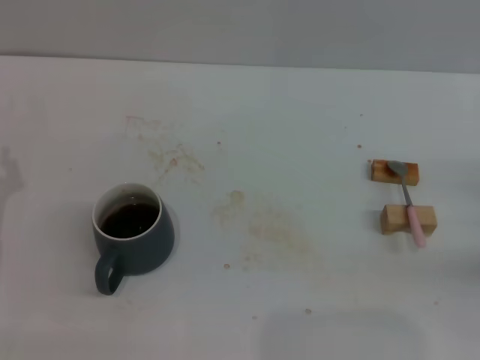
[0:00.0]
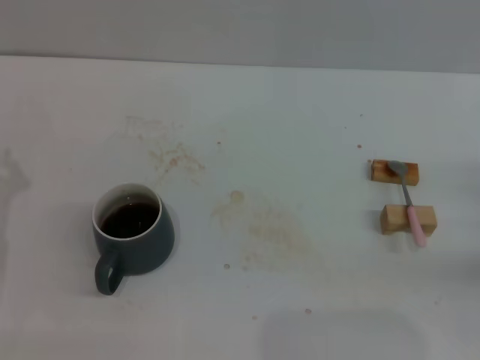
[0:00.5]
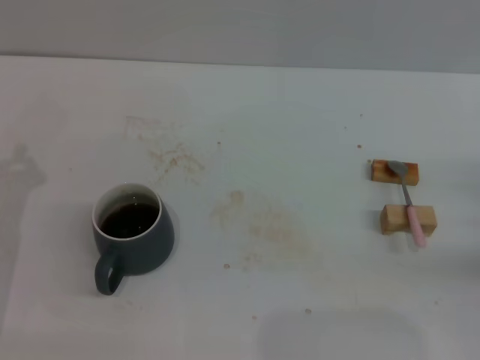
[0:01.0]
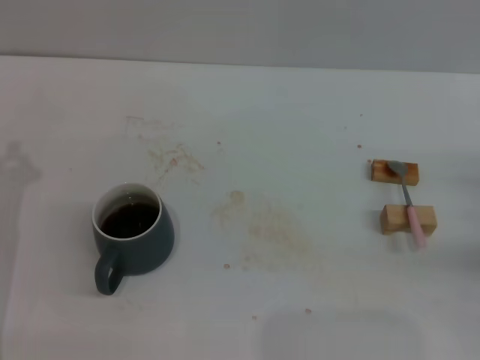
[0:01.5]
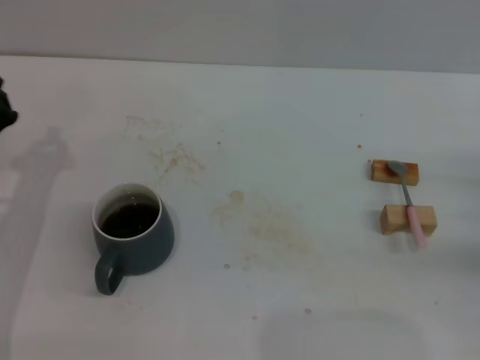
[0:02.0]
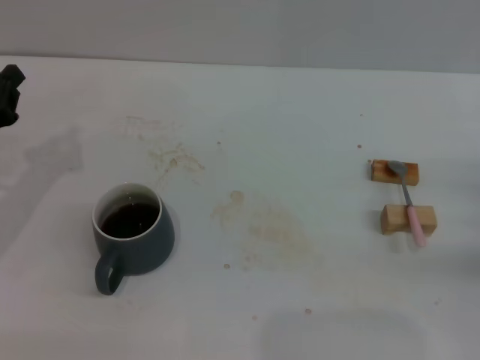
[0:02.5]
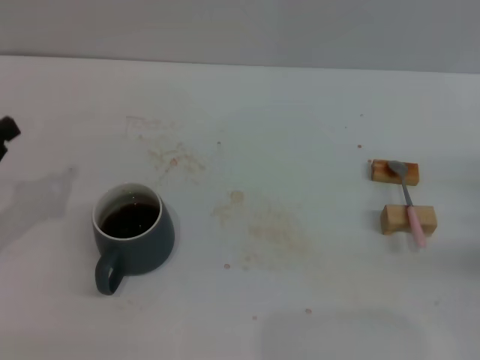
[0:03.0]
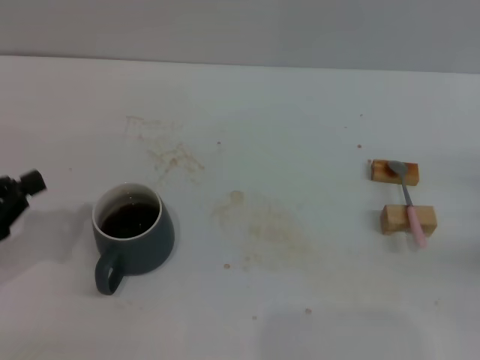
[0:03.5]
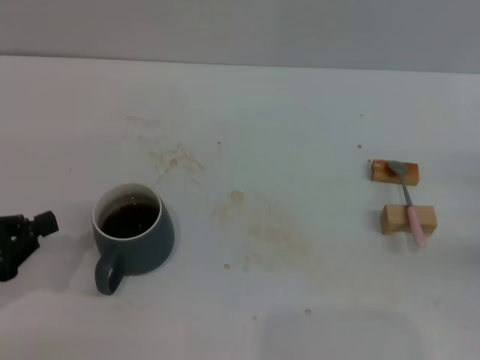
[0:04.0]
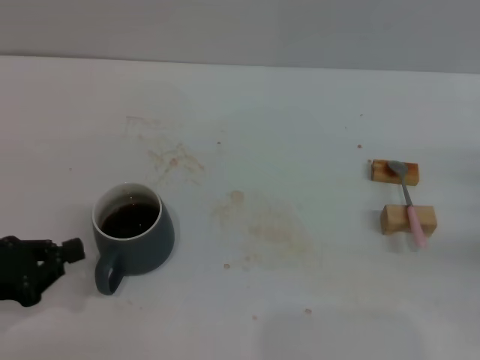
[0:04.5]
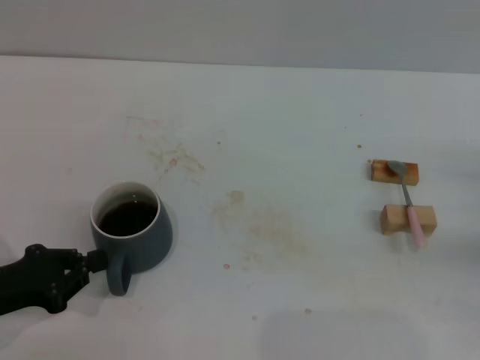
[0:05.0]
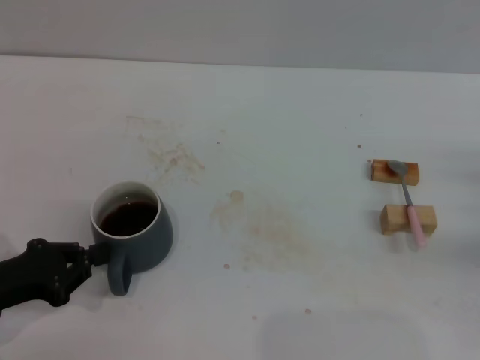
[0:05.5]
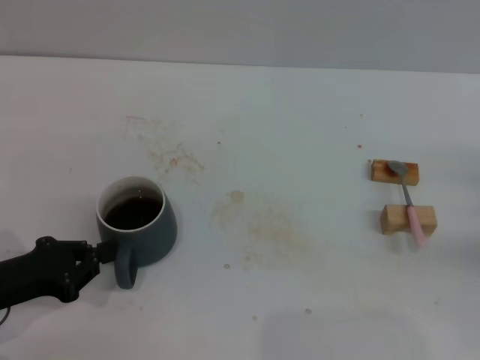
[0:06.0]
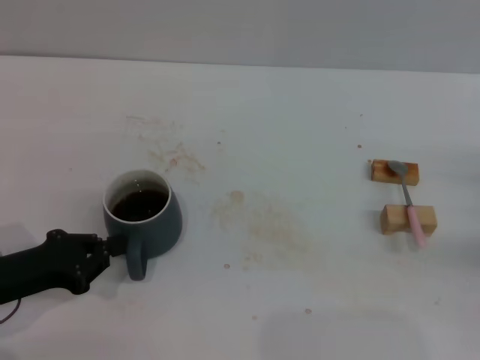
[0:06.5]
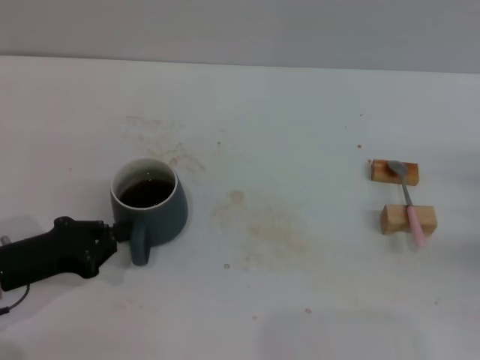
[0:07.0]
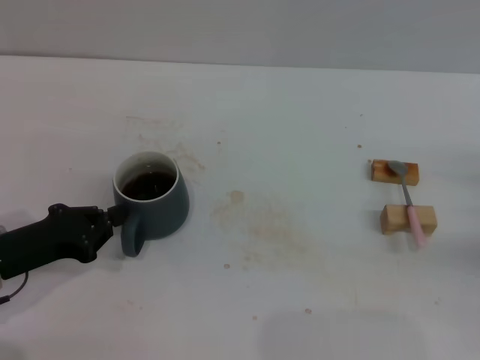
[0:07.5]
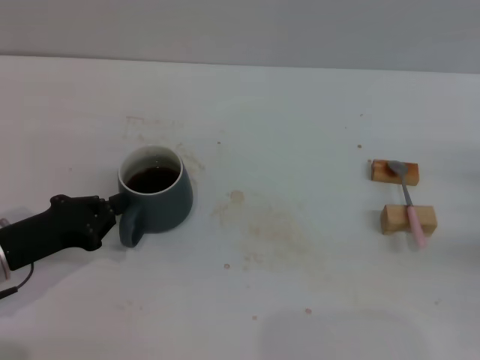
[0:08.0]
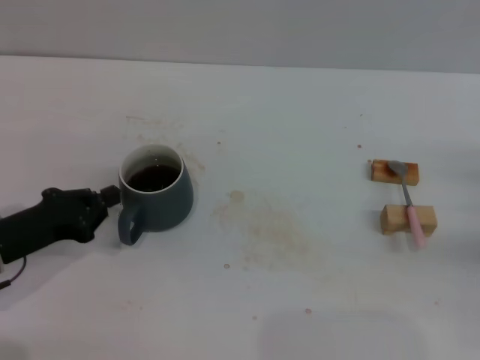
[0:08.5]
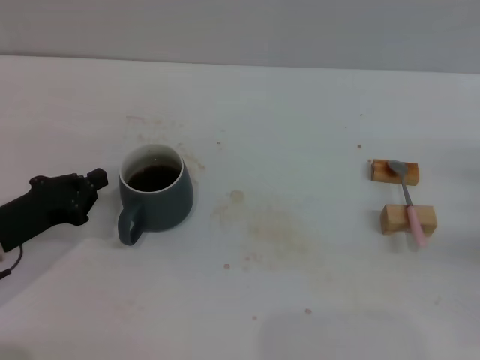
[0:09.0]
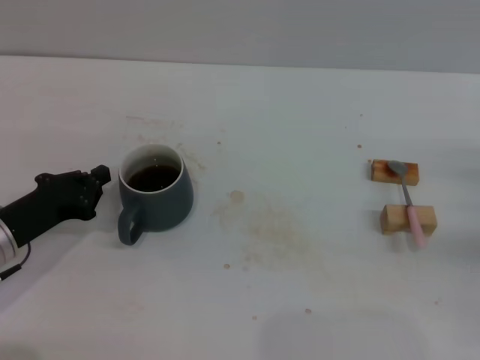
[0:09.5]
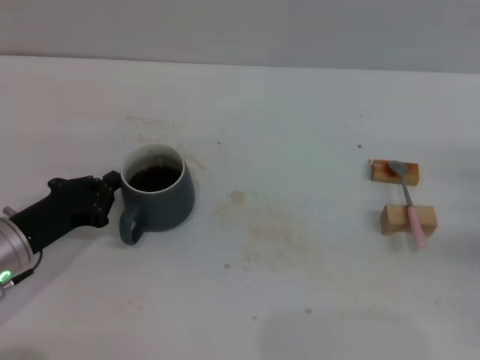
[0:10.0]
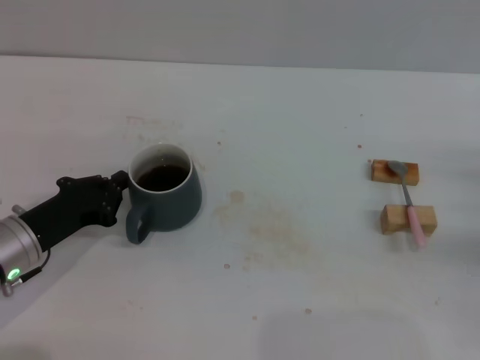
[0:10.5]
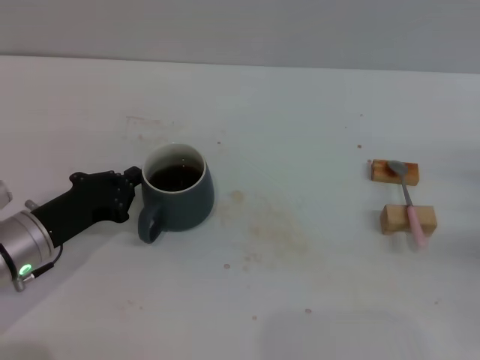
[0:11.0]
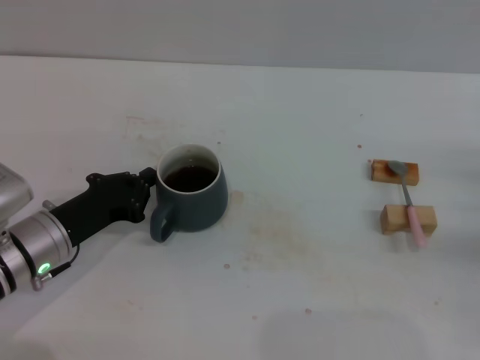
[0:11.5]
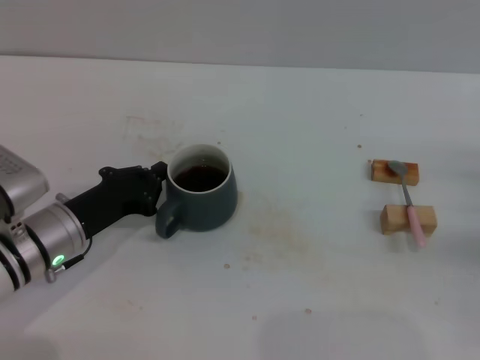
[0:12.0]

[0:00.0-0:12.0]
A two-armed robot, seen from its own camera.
Task of the whole recording: Move the grey cup to the center, lift the pink spoon, stir it three times in the cup, and put the spoon into the cup.
2.0 to 4.0 s: The left gripper heads backward and to the left, covering some 10 cm.
4.0 to 6.0 s: The grippers move only a little.
6.0 to 8.0 s: The grippers make only small movements.
8.0 to 10.0 s: The grippers make only small movements.
10.0 to 12.0 s: The left gripper moves approximately 5 cm.

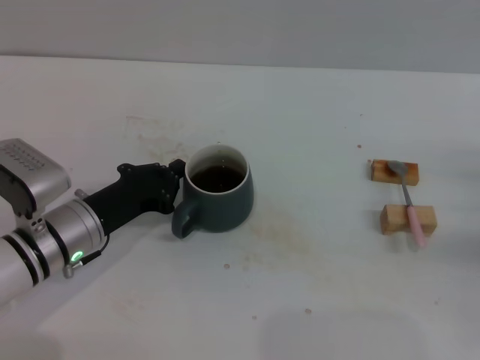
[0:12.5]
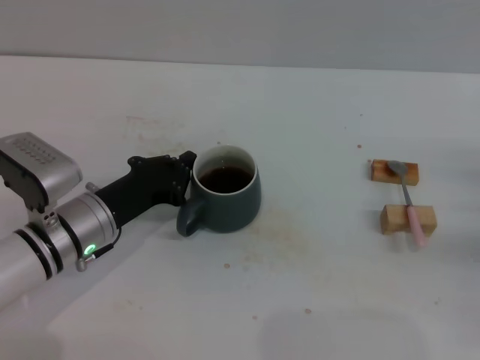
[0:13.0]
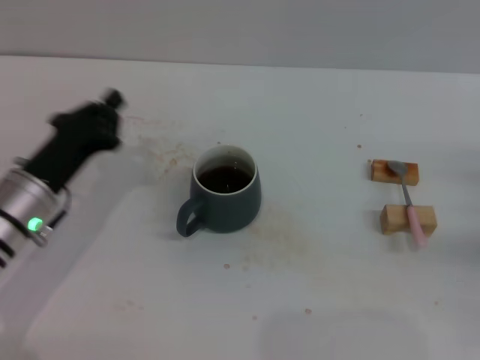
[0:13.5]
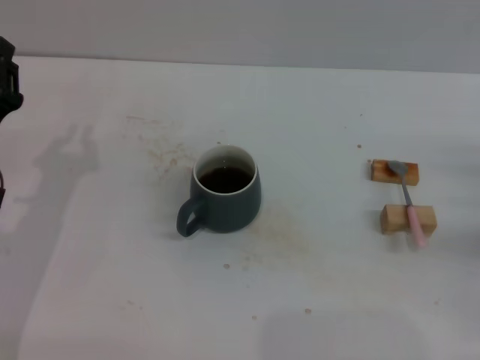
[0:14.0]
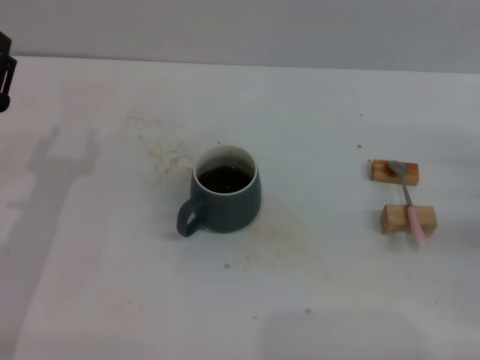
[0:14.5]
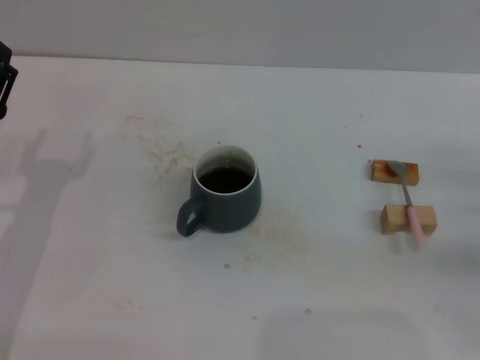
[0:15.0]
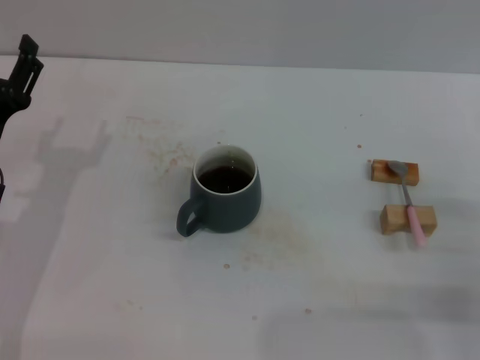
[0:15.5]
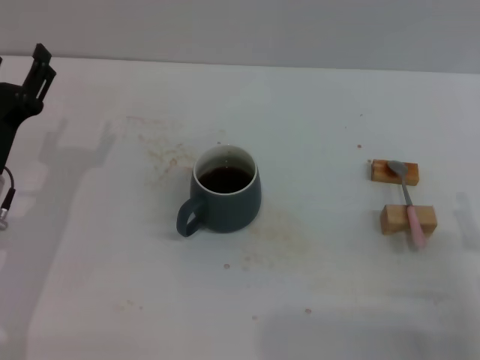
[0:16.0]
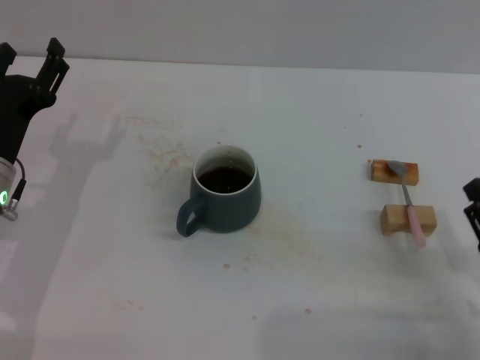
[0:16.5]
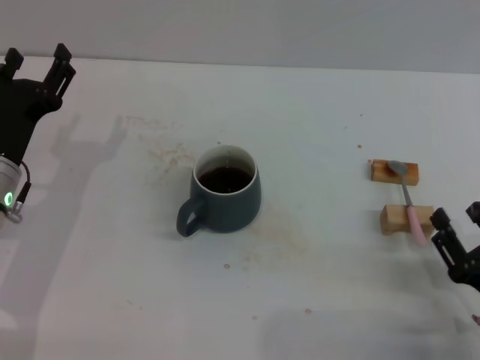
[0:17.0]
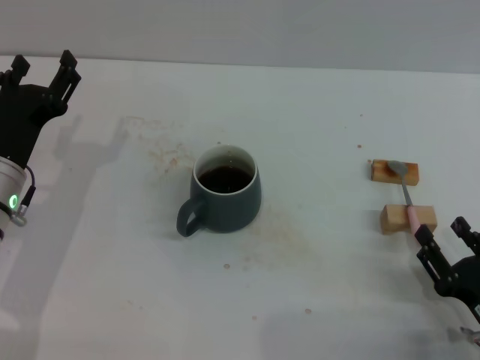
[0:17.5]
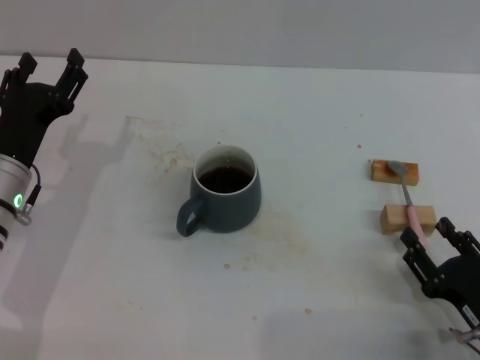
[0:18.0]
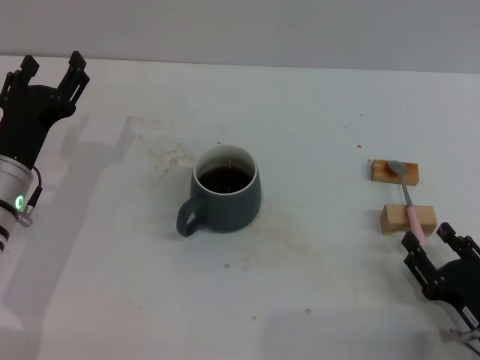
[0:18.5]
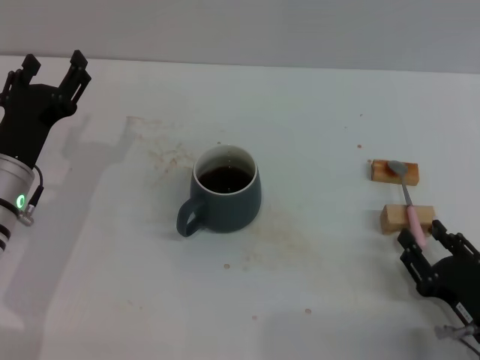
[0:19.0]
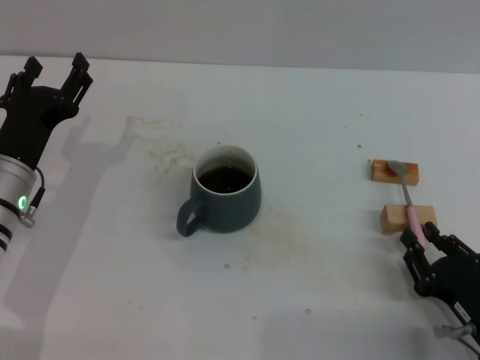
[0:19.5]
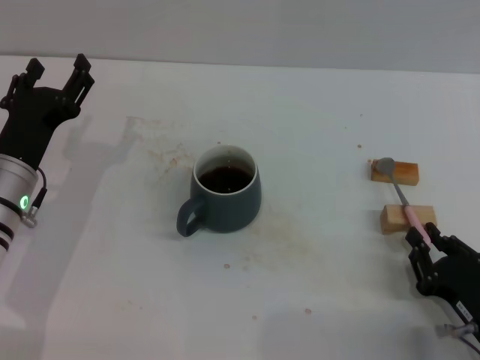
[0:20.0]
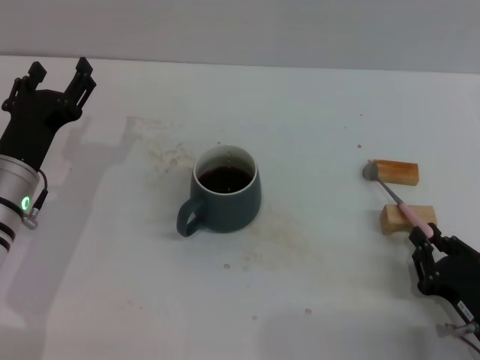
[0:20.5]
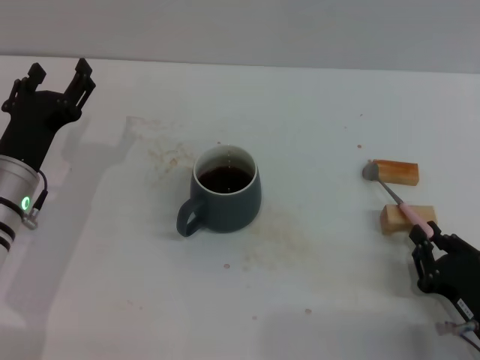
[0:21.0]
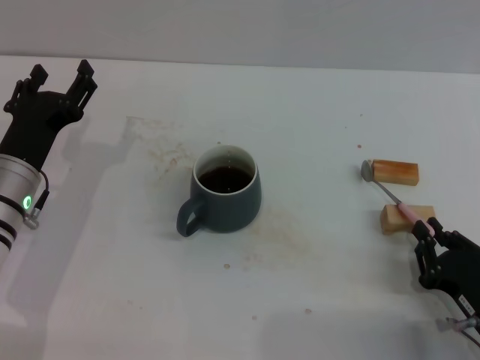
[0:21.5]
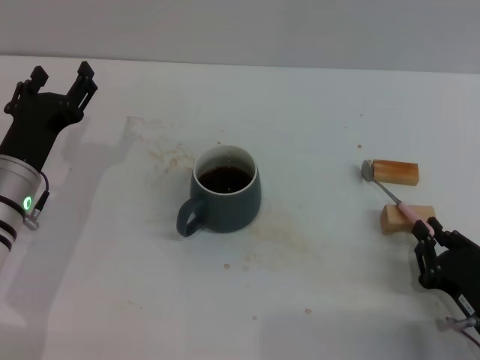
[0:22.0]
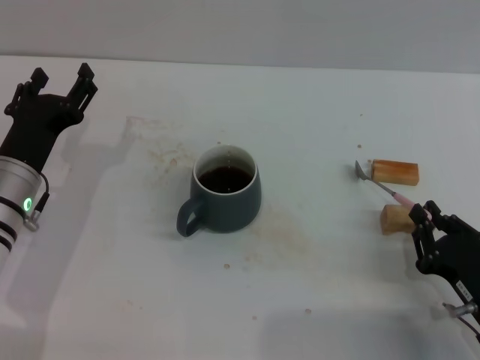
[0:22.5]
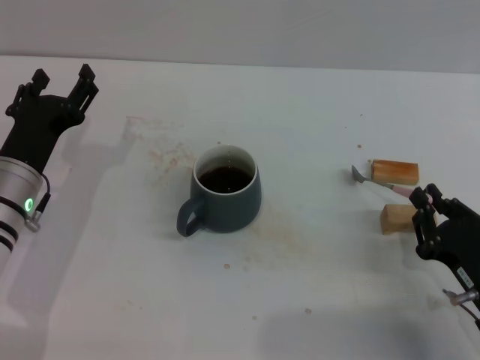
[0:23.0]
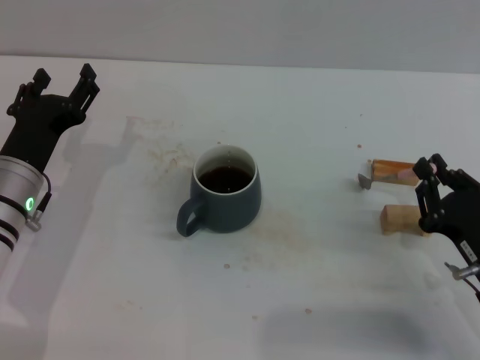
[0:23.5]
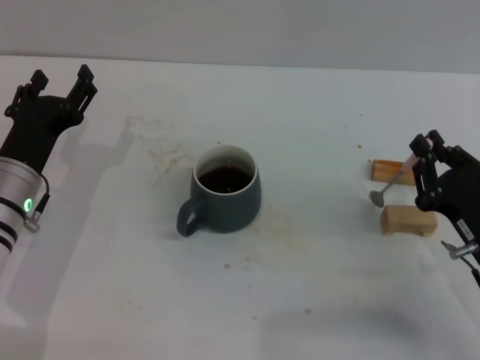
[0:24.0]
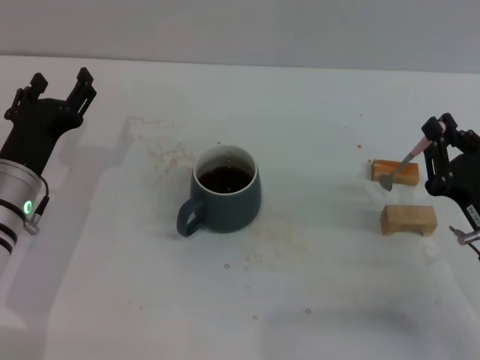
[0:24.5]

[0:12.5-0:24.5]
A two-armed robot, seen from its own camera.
Task of the whole recording: Move the grey cup to the center, lift the pink spoon, stir it three times in the cup, and put the spoon into the cup.
12.5 to 14.5 s: The left gripper is displaced to the left by approximately 5 cm, and opens its fingers.
14.5 to 16.5 s: The right gripper shifts some 15 cm backward and to the left.
16.5 to 18.5 s: The grippers stay close to where they were, moving slightly.
18.5 to 20.5 s: The right gripper closes.
20.5 to 22.5 s: There are only small adjustments of the grippers.
22.5 to 24.5 s: The right gripper is displaced forward by roughly 5 cm.

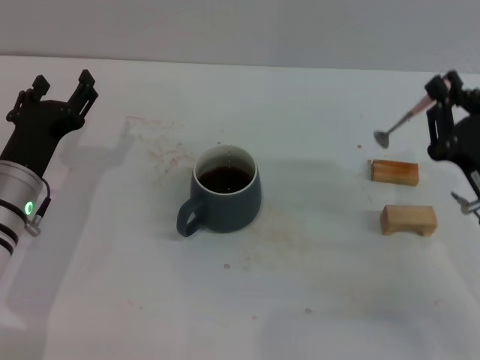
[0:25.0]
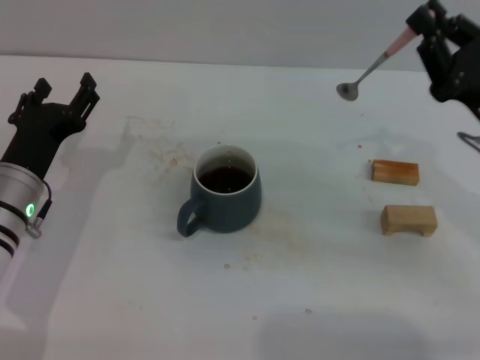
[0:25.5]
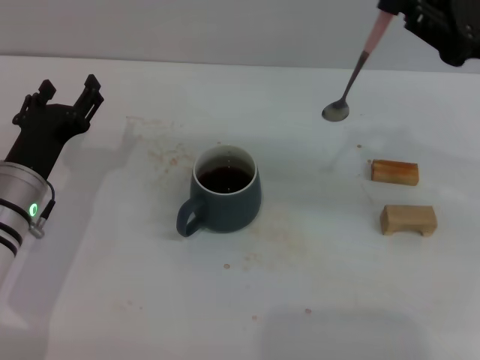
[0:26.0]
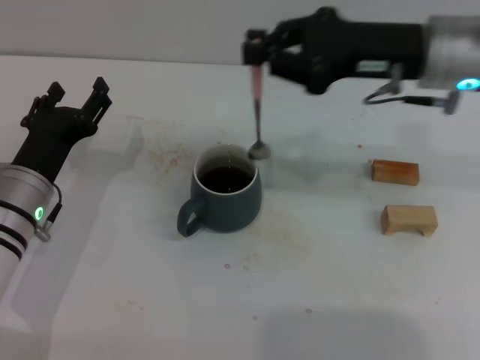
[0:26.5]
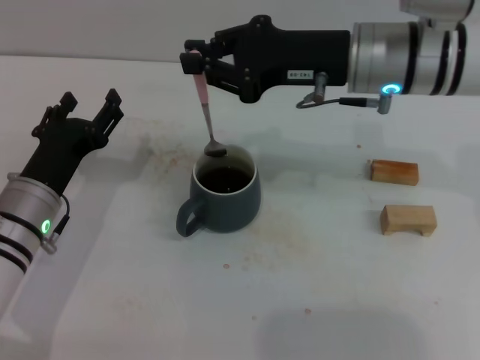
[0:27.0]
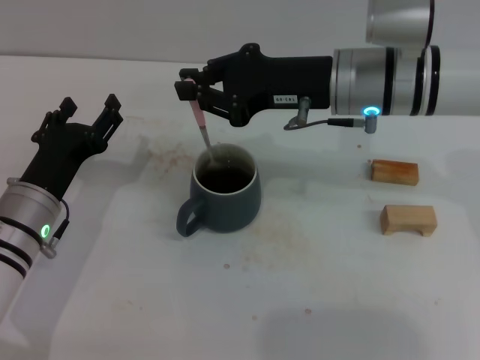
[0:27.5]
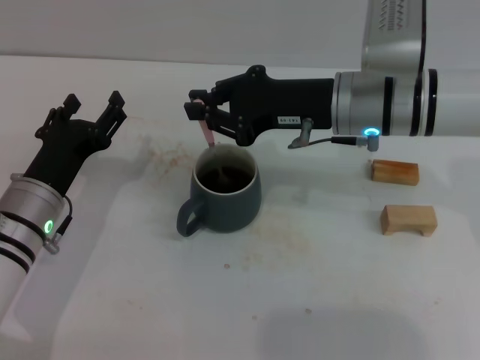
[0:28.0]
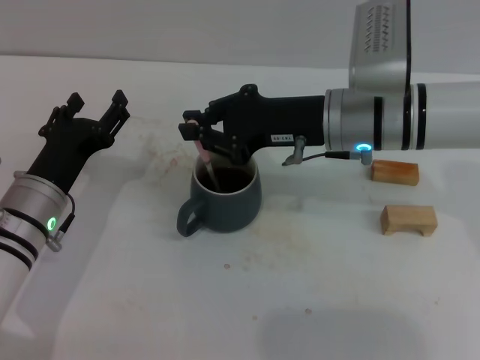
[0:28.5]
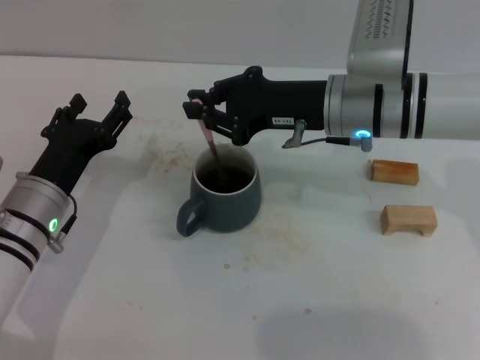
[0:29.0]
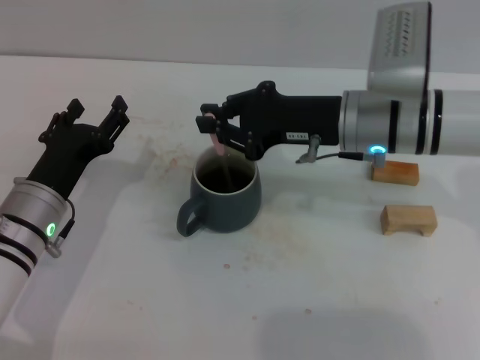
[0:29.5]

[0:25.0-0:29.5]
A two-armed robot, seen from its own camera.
Task of the whole recording: Move the grey cup to the center, lift the pink spoon, stir it three times in the cup, and put the spoon into the cup.
25.0 to 27.0 s: The right gripper heads forward, upward and to the left, covering some 20 cm.
27.0 to 29.5 s: The right gripper is displaced downward by approximately 5 cm.
